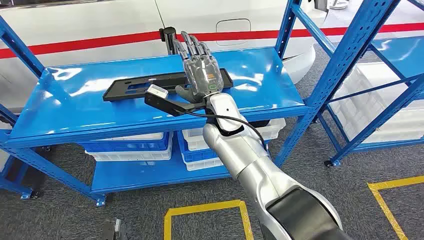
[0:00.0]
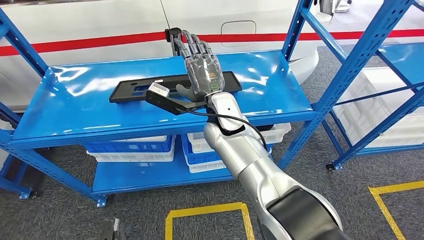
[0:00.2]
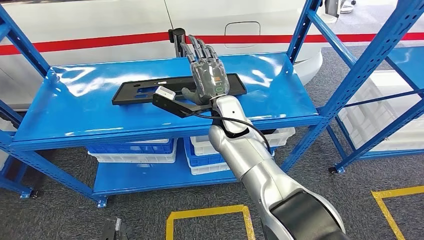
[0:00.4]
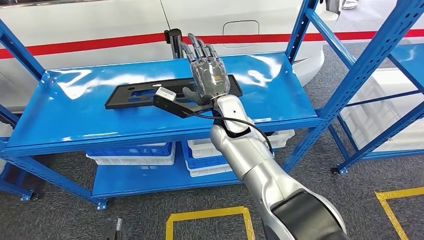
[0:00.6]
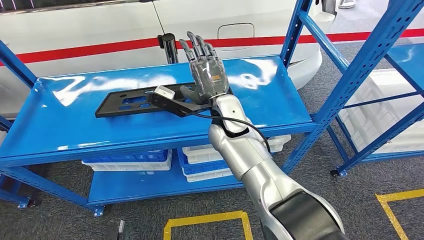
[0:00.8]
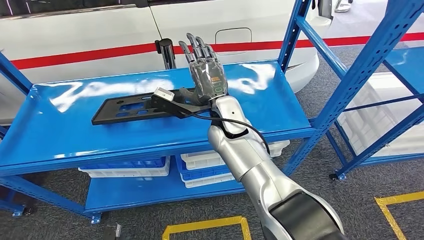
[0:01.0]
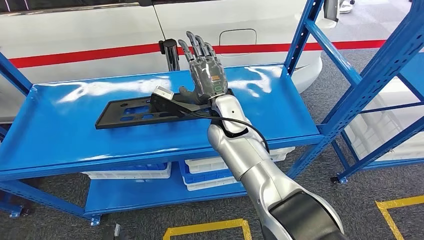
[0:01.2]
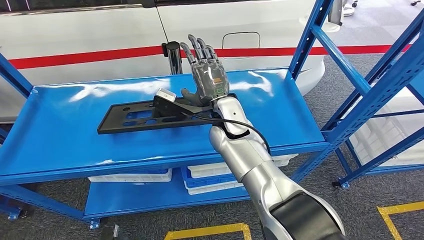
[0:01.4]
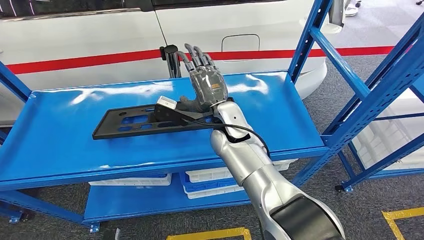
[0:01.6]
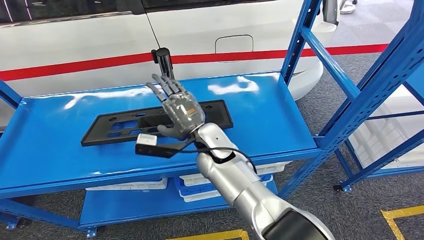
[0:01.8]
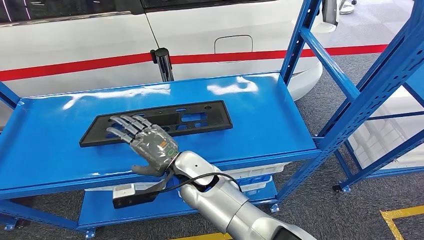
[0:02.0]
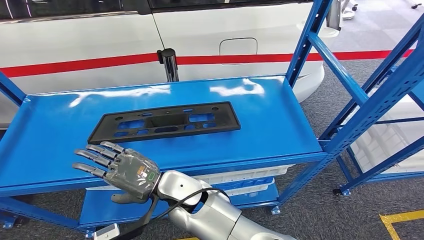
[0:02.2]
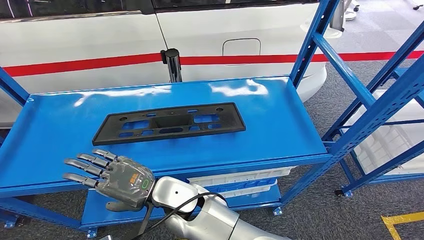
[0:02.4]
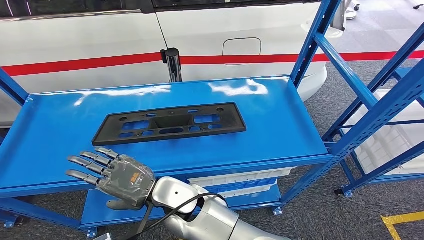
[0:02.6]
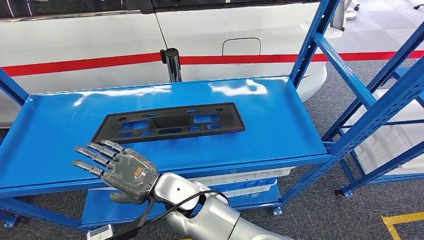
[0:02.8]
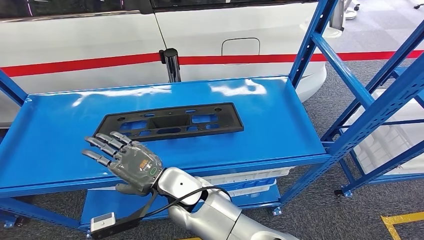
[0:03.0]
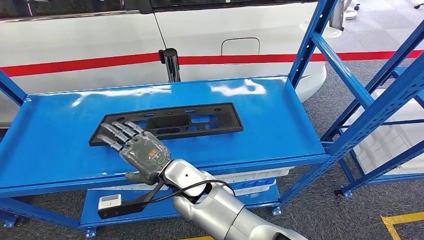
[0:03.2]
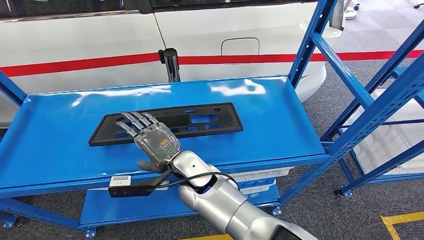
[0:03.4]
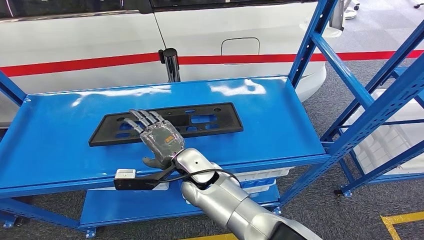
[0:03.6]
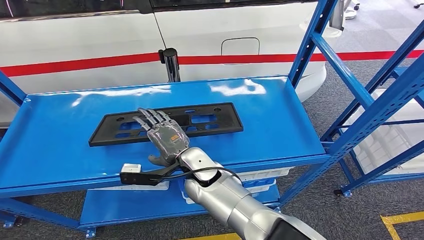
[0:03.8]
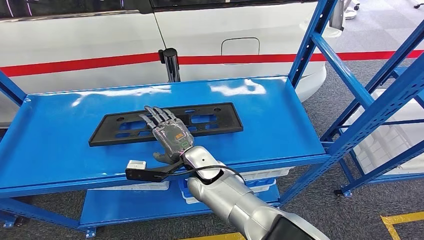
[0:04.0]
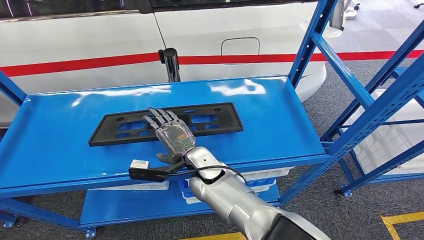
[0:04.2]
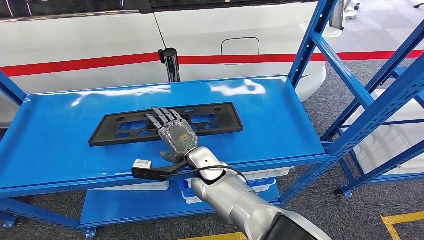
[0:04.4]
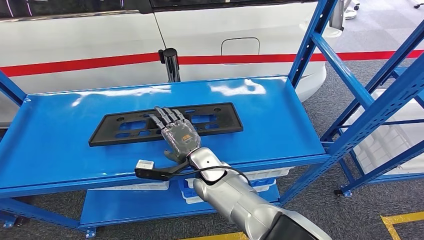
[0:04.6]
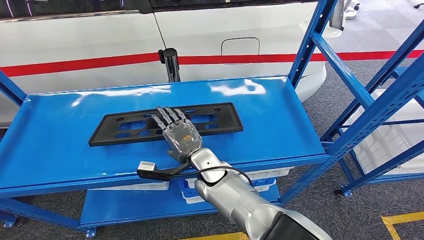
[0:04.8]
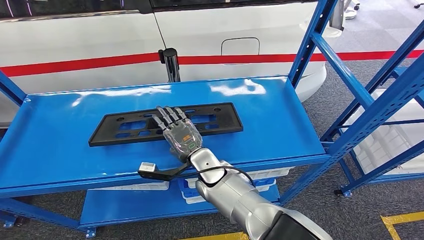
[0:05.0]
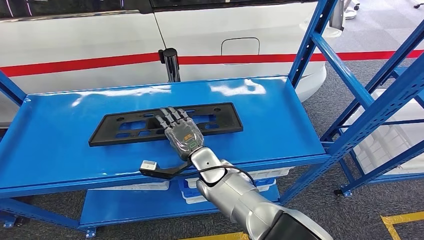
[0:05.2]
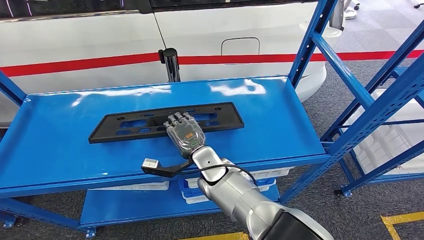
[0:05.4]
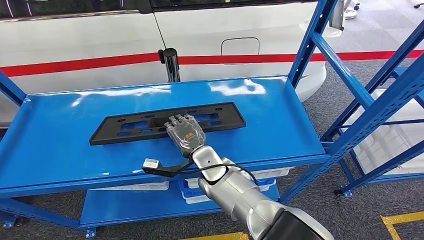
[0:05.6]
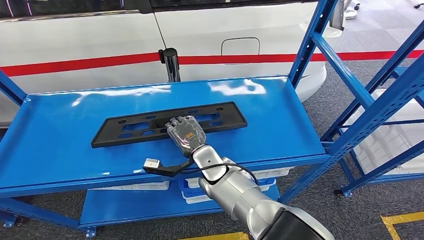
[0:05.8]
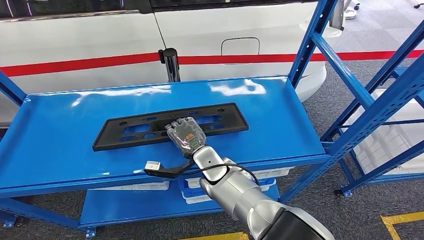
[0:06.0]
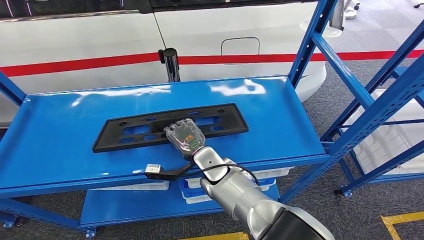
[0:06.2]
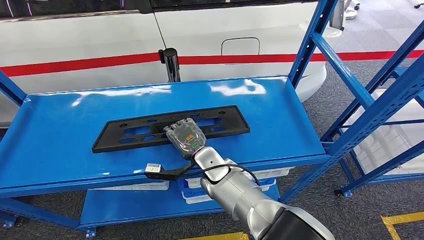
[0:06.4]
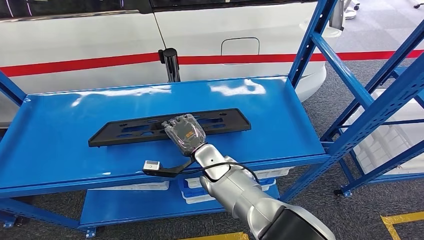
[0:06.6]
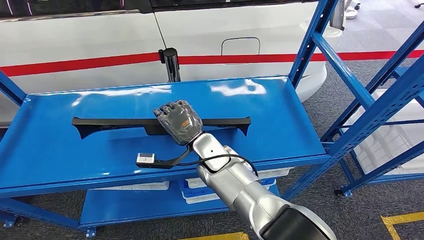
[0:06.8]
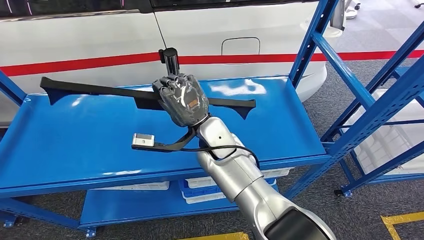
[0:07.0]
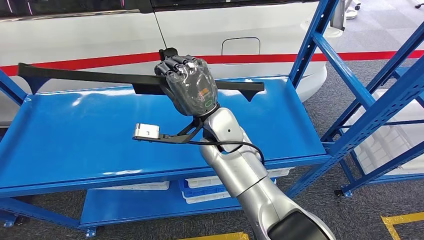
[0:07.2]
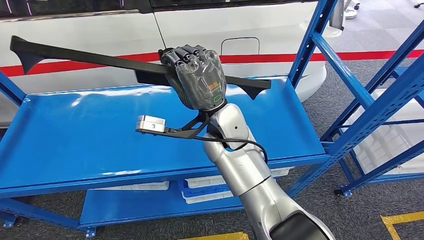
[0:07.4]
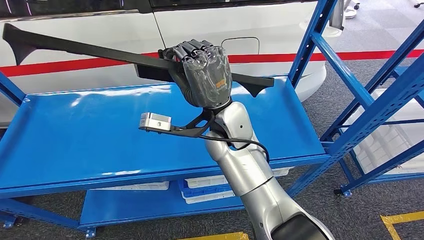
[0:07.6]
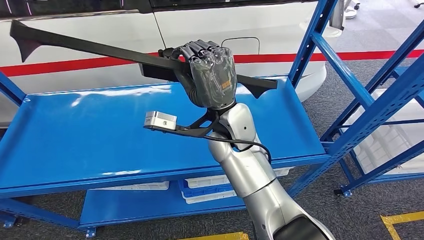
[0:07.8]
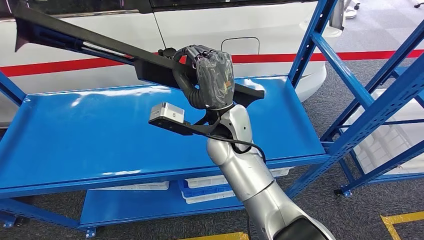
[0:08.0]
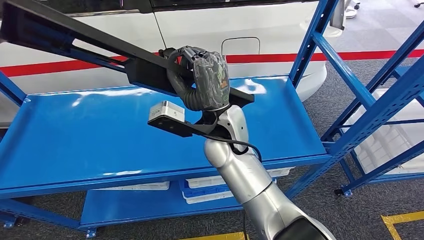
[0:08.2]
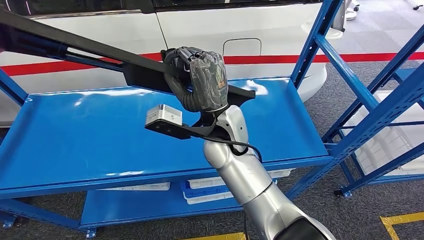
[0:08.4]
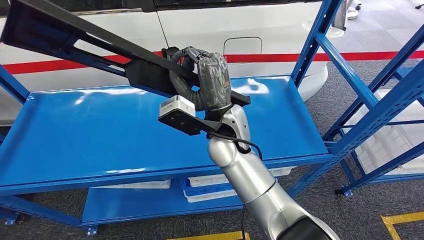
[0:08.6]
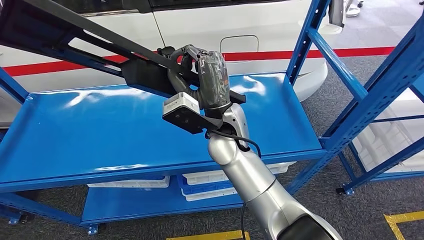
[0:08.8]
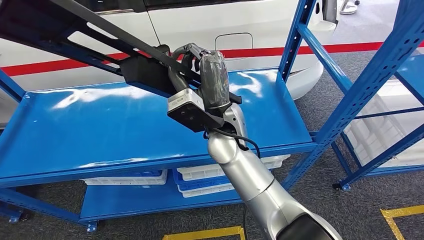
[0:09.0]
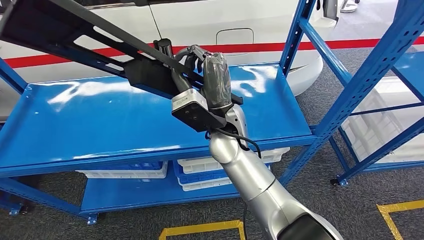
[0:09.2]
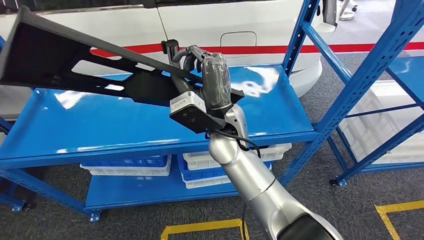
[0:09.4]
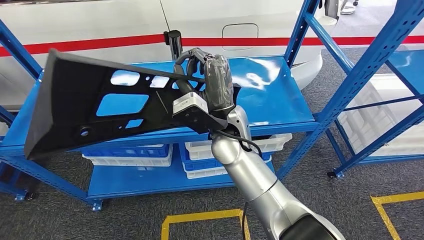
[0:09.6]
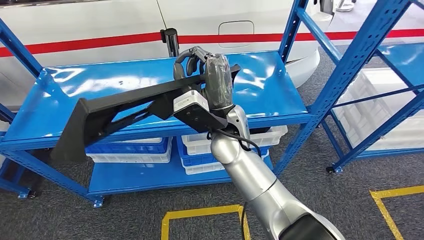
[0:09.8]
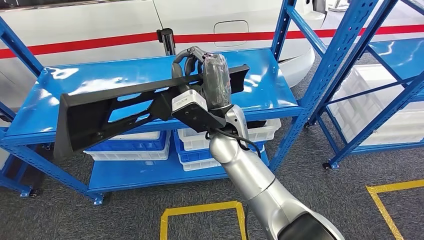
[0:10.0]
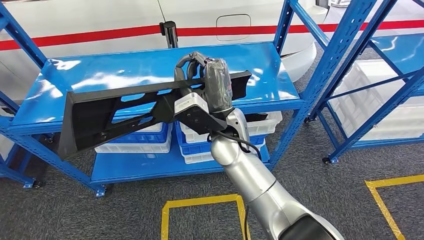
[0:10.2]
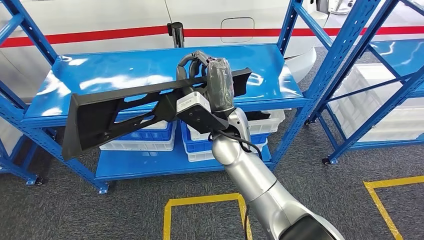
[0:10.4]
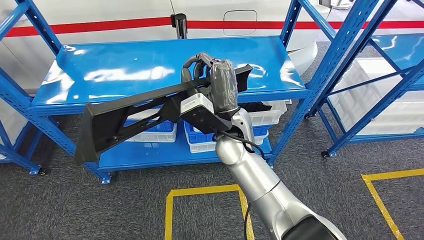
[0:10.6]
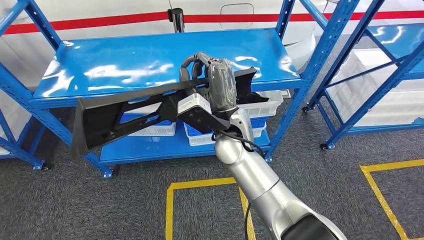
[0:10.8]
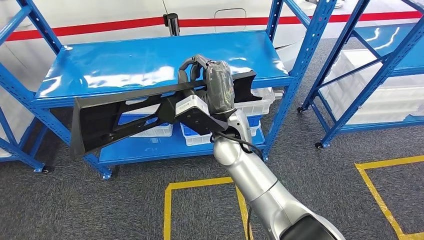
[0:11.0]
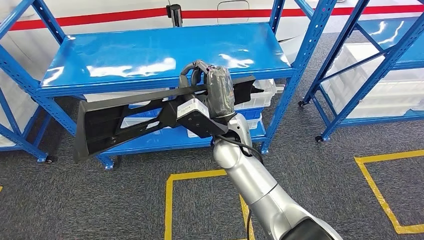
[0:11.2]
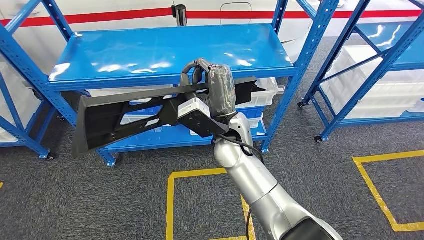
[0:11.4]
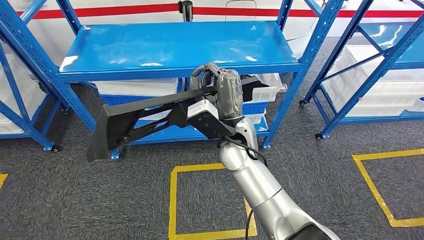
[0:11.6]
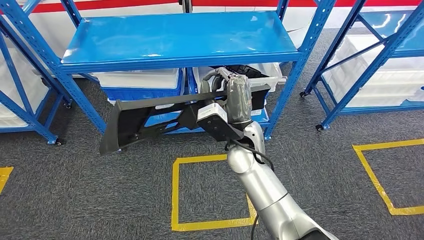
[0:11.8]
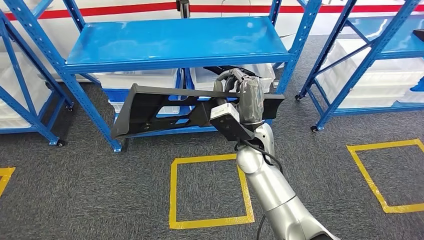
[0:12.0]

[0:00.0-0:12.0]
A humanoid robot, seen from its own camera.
0:03.0 to 0:04.4: The right hand goes some 10 cm forward and to the right.
0:04.4 to 0:06.0: The hands move only a little.
0:06.0 to 0:07.6: The right hand moves upward, some 15 cm.

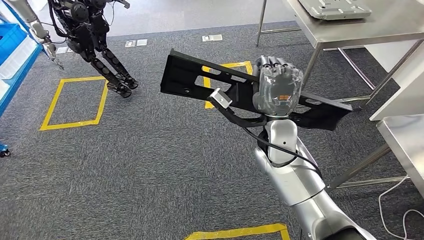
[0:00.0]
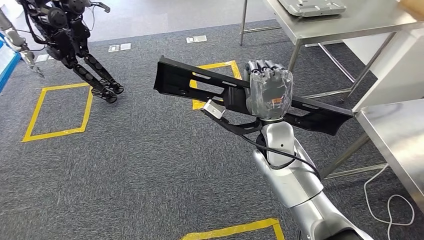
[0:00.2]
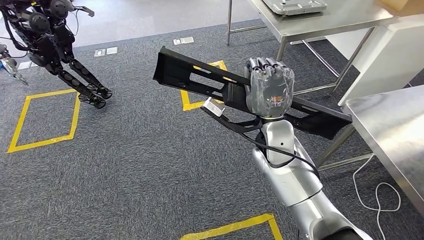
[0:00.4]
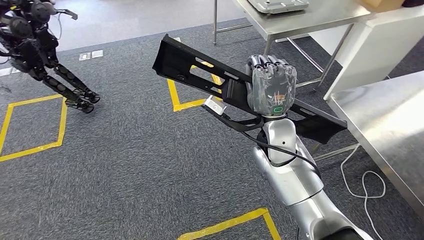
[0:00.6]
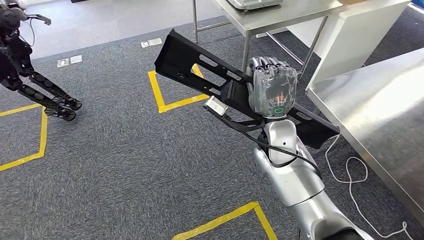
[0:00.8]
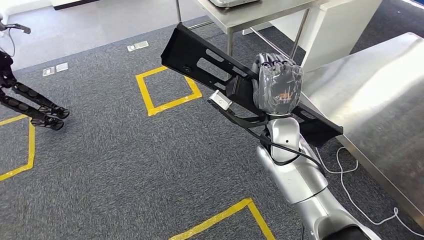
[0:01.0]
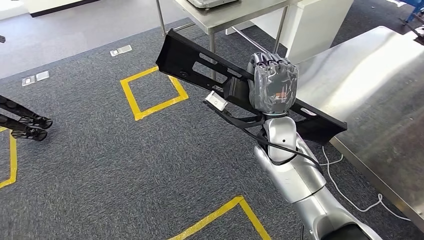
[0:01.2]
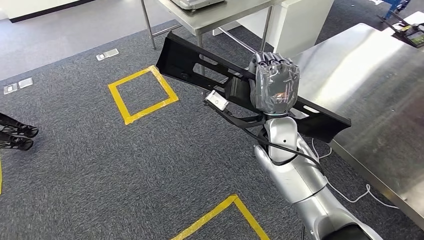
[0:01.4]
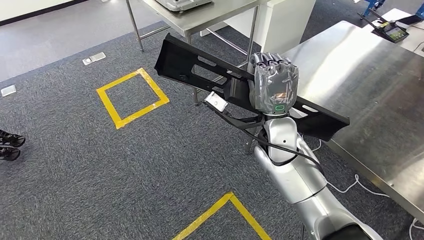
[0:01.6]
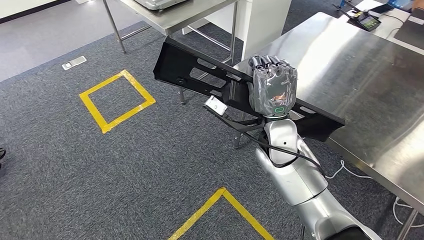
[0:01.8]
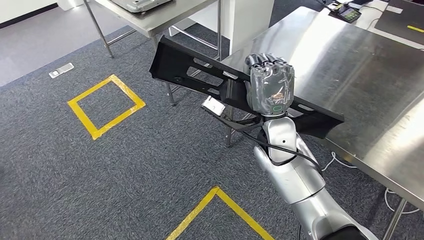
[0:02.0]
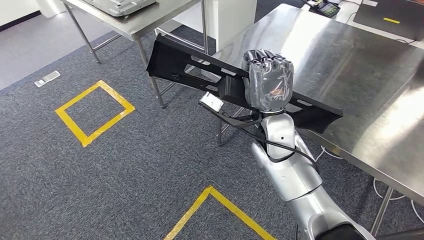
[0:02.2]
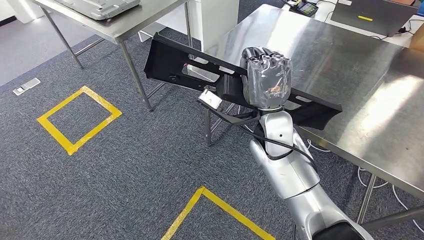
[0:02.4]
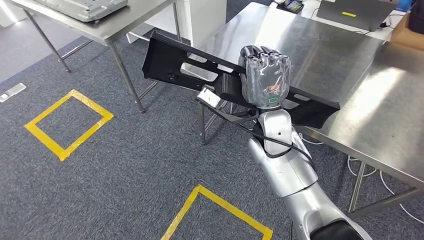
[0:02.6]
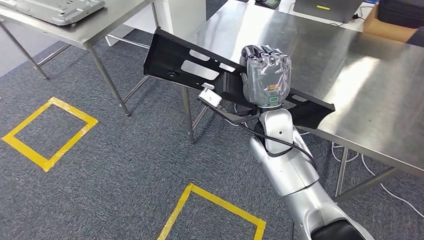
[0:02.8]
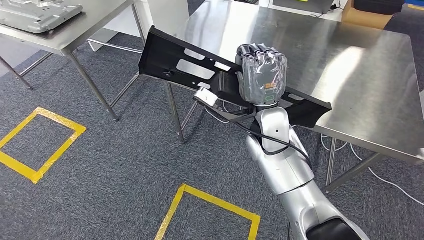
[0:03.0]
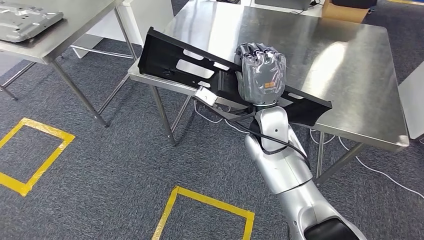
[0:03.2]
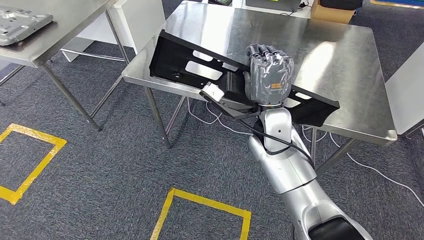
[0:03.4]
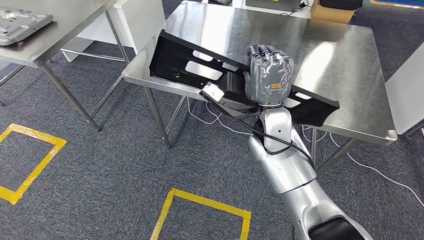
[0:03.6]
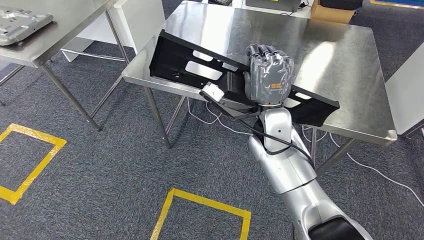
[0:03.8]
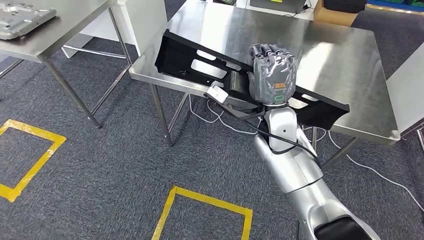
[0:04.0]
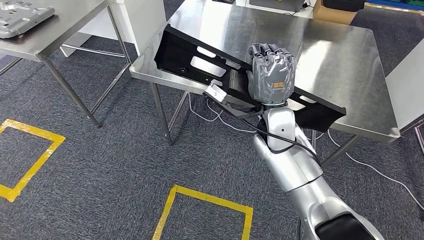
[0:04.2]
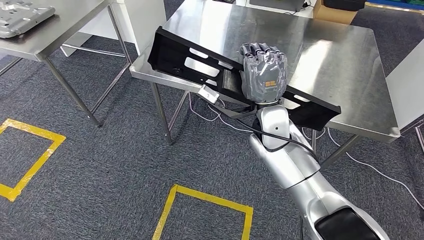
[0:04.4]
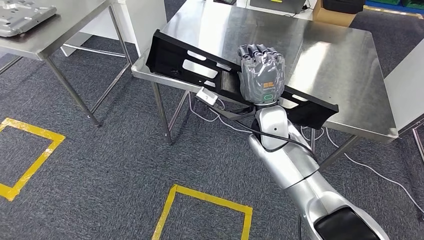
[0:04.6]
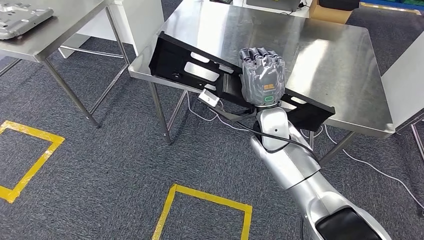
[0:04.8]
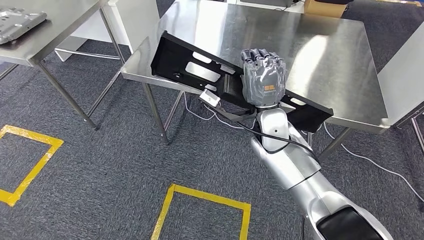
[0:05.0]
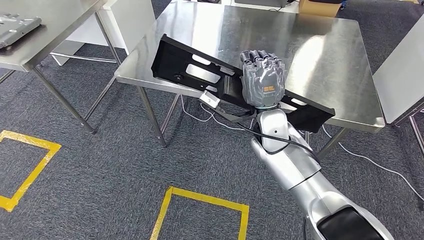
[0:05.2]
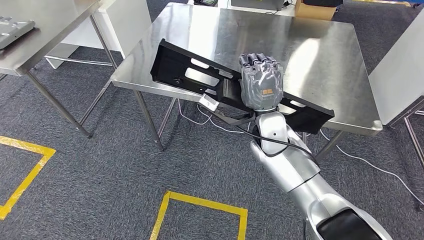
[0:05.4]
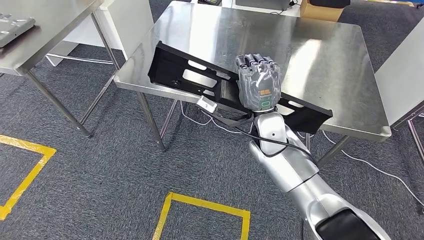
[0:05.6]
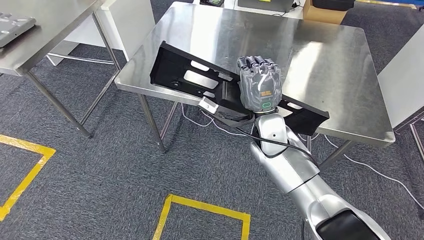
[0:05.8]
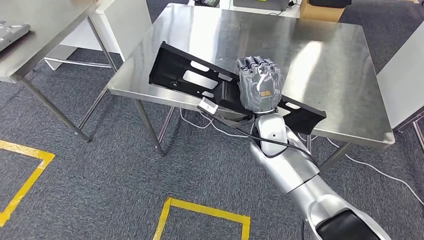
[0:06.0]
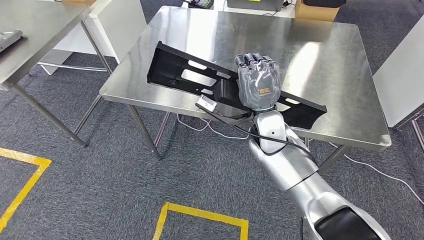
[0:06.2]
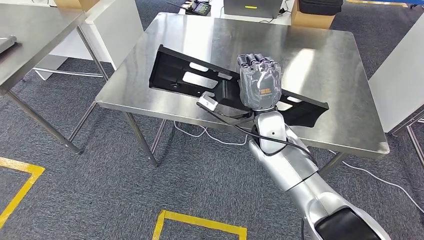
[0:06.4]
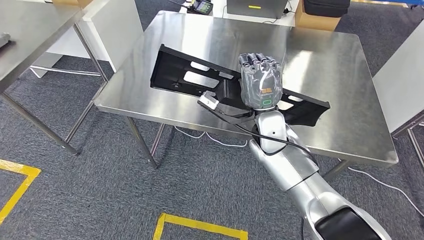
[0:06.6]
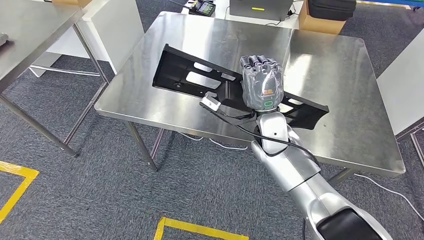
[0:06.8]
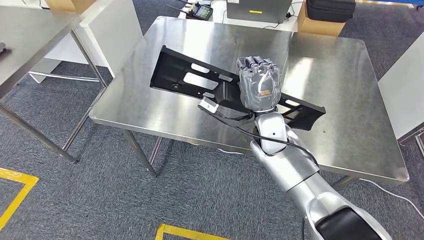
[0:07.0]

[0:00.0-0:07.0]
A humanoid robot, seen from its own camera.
Step, 0:00.0 to 0:04.2: Move the large material to the workbench.
